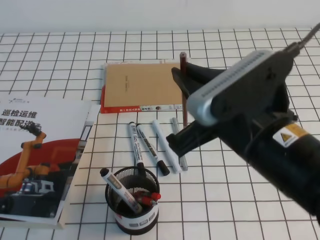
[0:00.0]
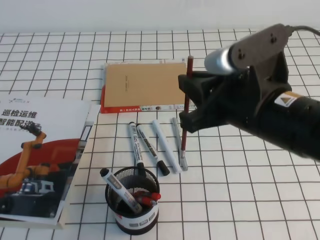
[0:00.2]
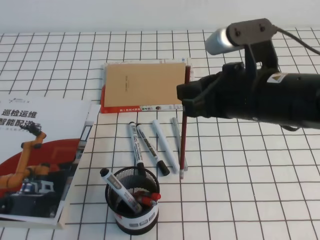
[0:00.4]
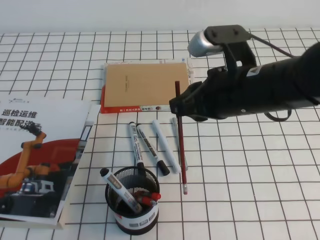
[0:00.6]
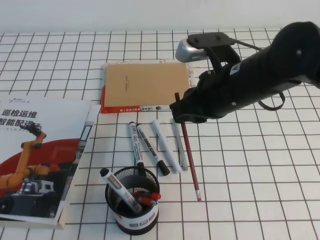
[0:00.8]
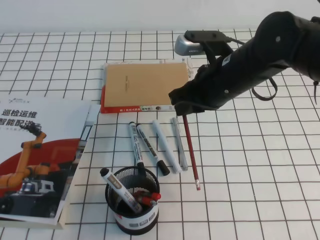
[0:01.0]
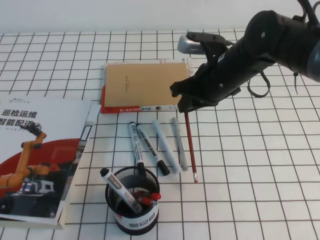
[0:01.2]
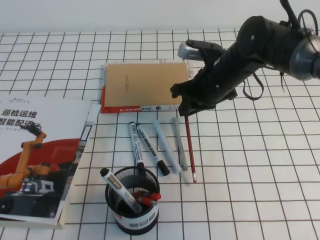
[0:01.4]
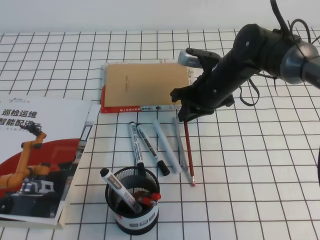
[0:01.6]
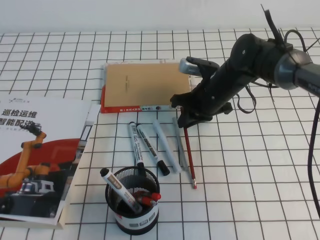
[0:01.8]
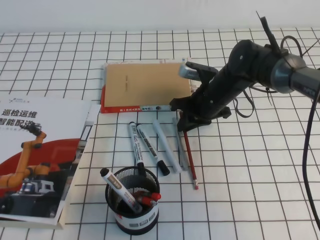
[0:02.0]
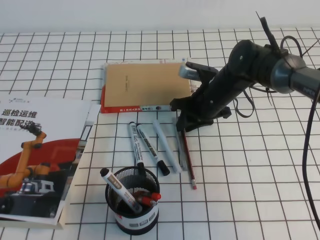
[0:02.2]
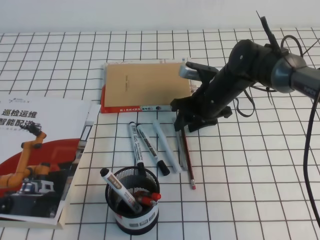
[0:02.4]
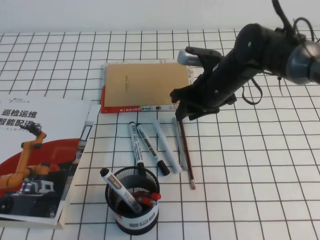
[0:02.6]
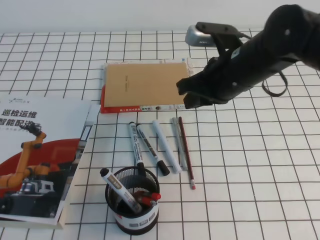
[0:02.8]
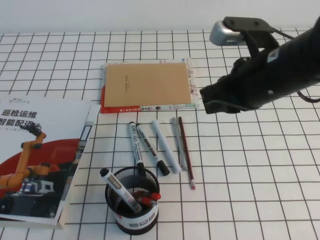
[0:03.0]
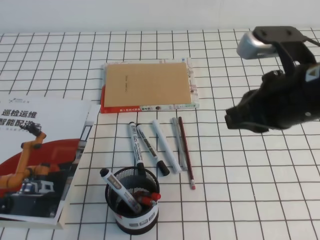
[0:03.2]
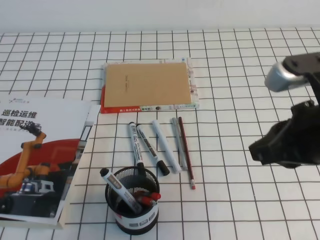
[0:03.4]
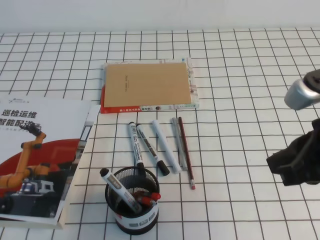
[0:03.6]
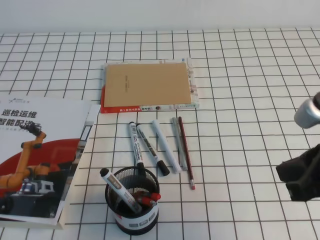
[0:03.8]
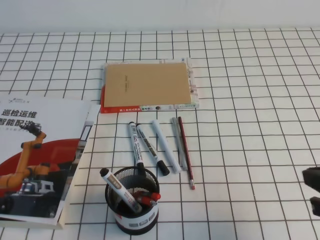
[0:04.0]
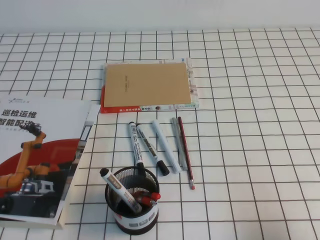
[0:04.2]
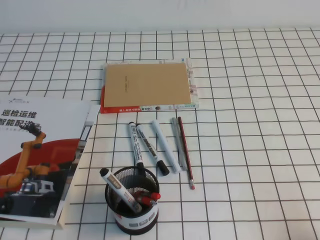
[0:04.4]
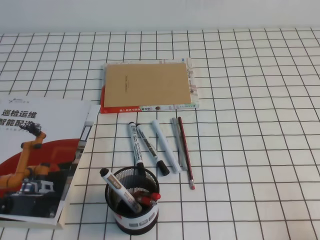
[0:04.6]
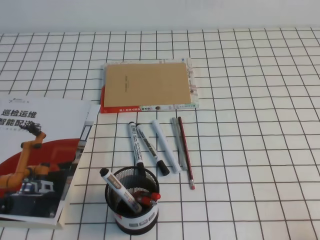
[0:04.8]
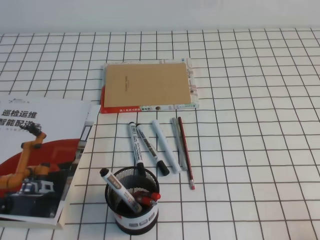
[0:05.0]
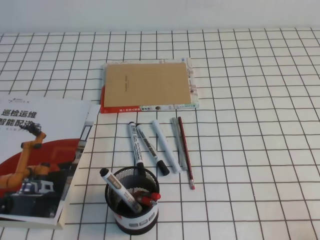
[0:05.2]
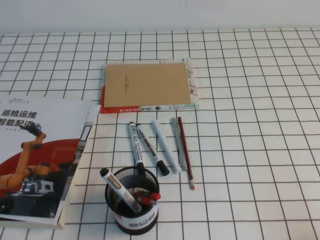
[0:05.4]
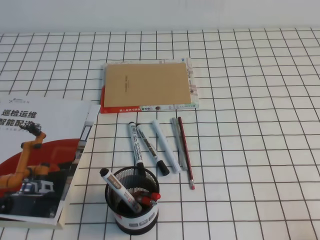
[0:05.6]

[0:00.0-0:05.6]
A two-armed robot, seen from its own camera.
Step, 0:00.0 to 0:05.6: Pick up the pen from the pen holder.
0:00.0 to 0:01.4: The right gripper moves forward and downward, about 25 cm.
0:01.4 to 0:02.8: The right gripper moves about 5 cm.
0:02.8 to 0:04.2: The right gripper is displaced backward and to the right by roughly 30 cm.
0:04.2 to 0:05.6: The right gripper shifts roughly 10 cm downward and backward.

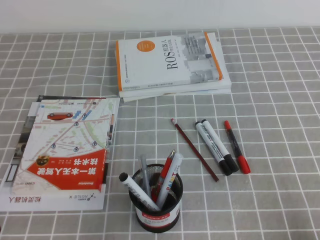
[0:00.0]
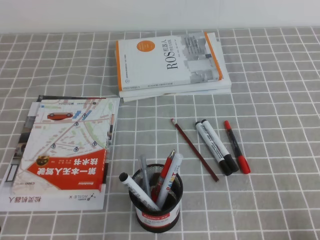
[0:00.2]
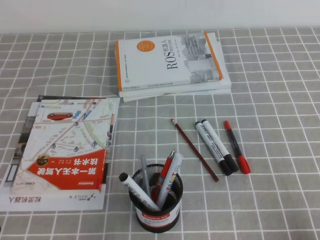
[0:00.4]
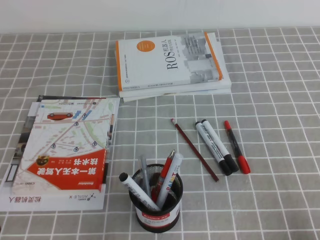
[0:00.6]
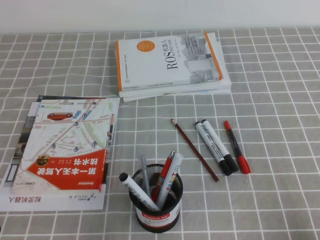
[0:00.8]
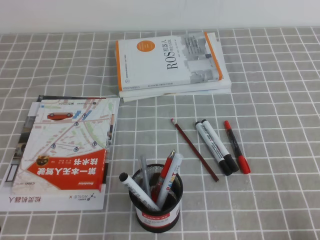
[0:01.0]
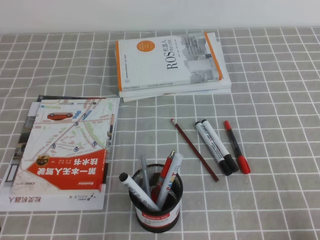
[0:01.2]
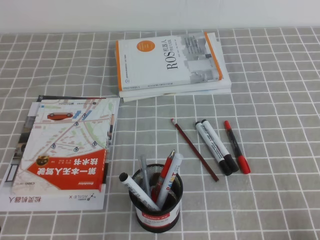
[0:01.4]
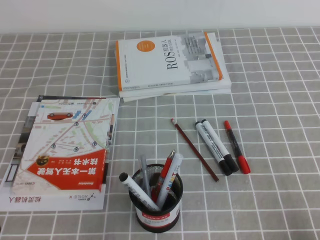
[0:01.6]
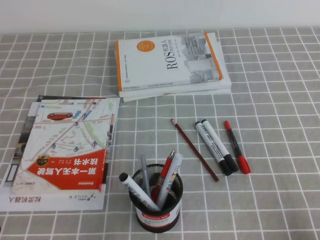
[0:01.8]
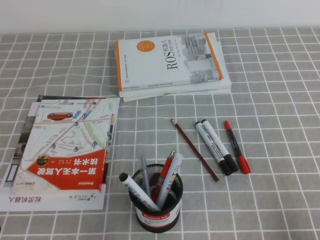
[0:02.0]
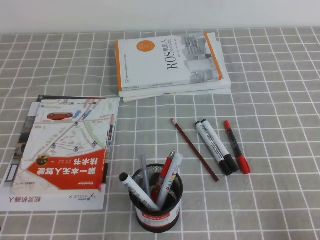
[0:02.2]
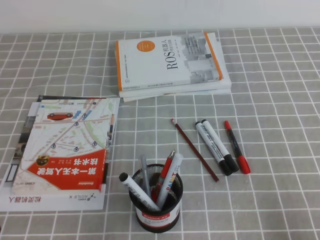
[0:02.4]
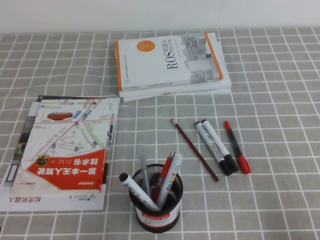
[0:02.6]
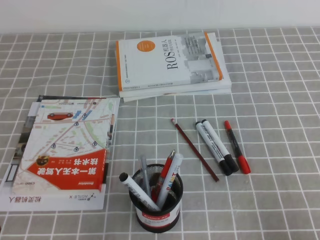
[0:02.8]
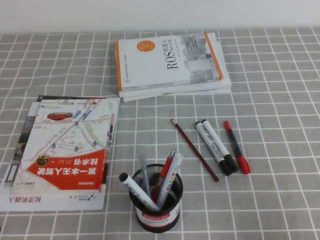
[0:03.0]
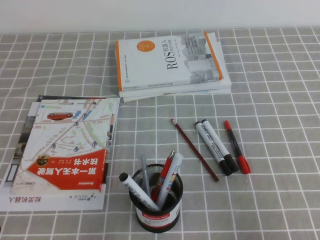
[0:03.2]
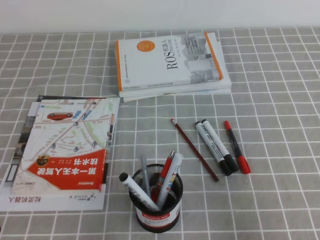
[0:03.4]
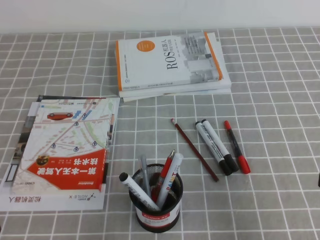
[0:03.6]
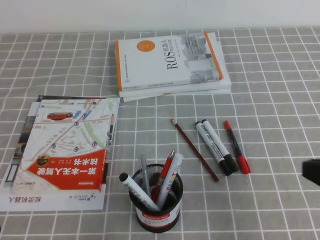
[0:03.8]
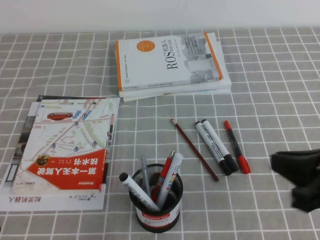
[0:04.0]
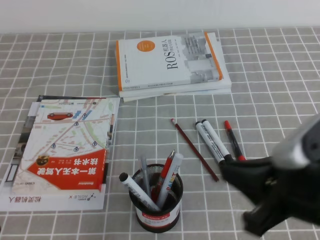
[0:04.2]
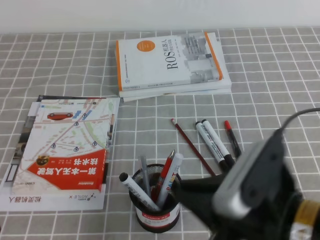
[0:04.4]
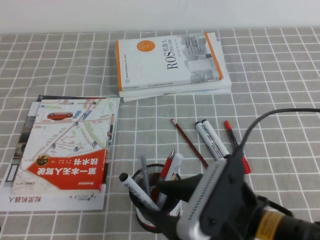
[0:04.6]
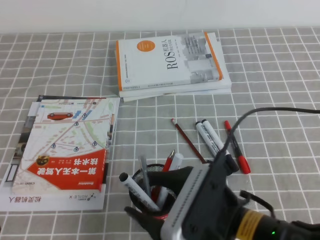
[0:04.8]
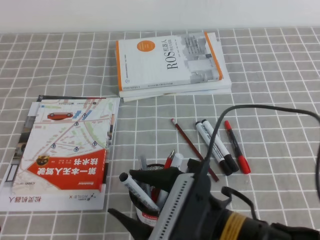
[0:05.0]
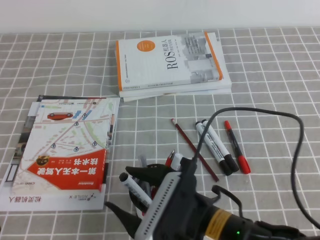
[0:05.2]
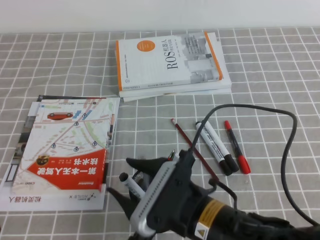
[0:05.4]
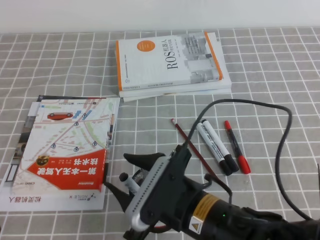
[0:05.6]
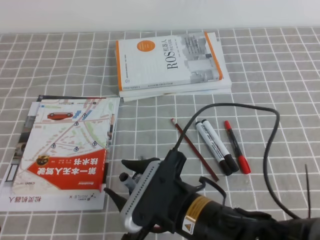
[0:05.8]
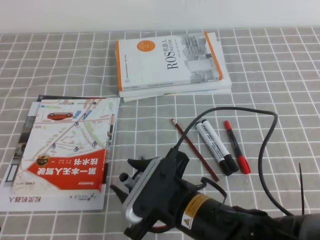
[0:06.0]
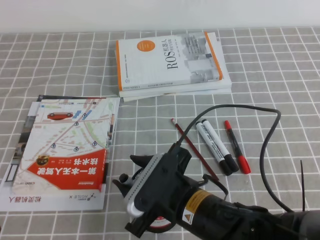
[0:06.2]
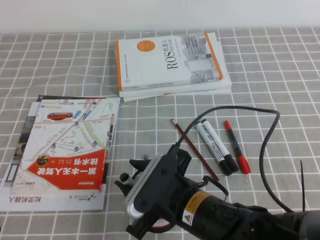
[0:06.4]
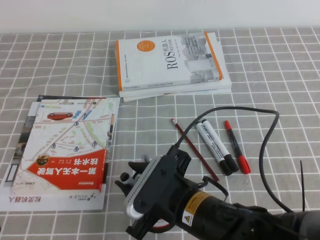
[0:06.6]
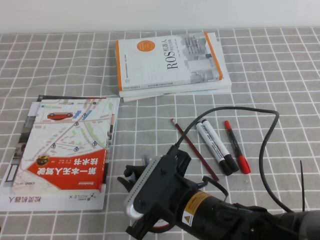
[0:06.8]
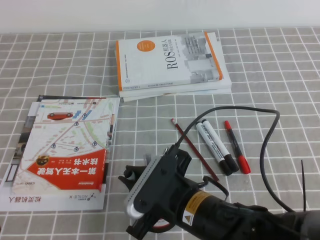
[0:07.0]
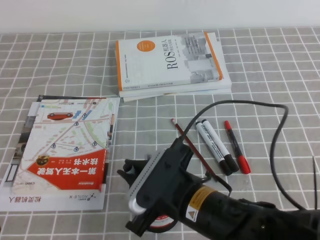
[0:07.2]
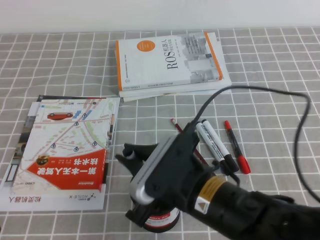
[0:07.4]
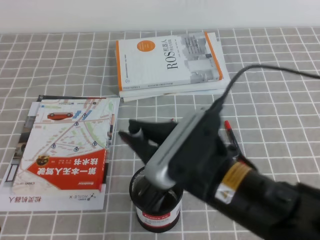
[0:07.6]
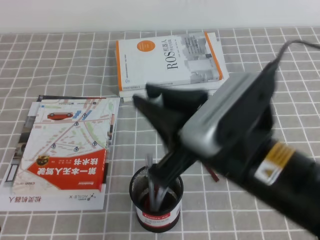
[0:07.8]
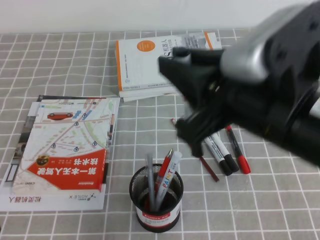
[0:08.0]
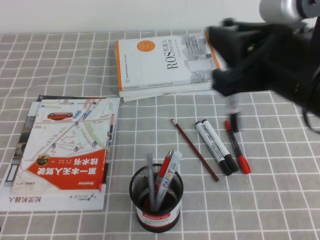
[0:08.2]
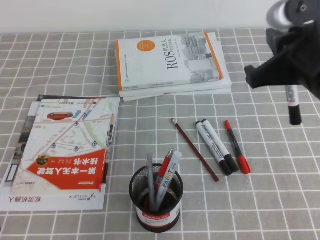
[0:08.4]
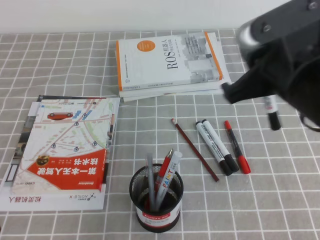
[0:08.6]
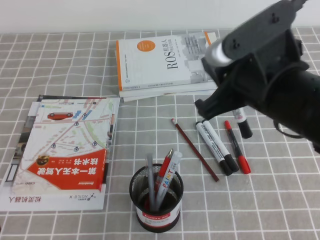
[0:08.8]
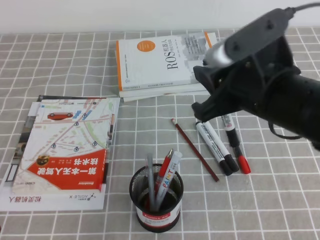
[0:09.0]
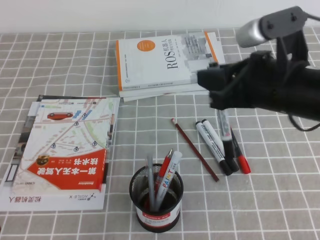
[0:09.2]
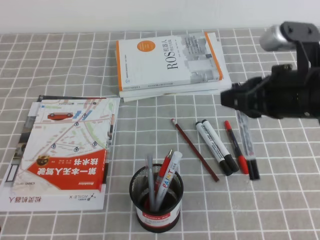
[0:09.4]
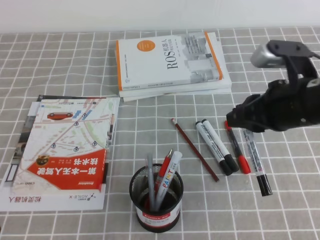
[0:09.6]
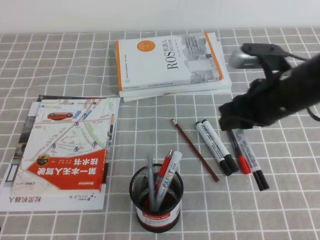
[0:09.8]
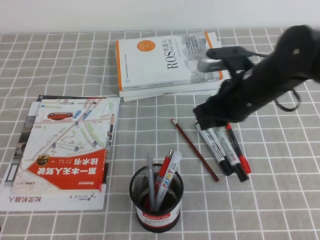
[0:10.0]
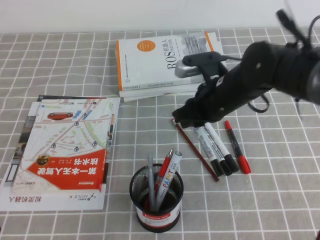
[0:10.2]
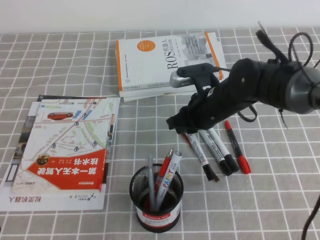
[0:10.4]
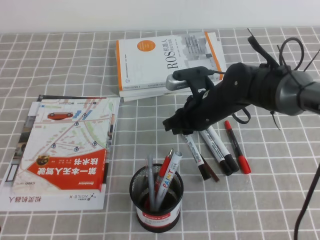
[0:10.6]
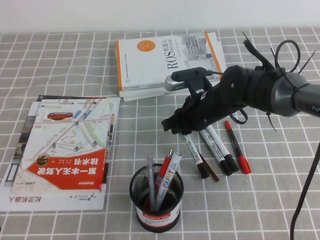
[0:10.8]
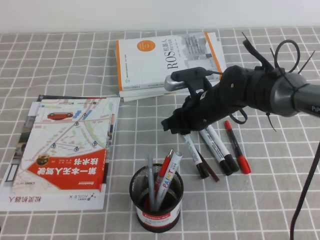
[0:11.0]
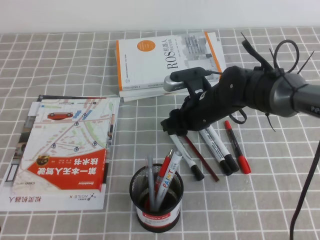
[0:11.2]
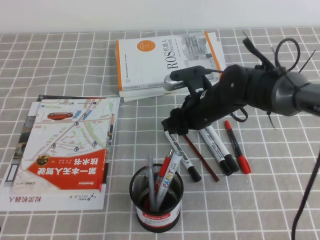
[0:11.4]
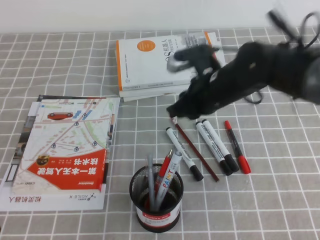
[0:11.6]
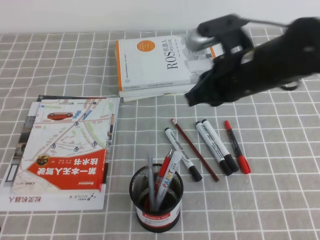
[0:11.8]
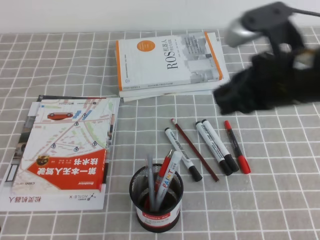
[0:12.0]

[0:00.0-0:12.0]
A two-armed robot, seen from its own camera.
0:00.0 to 0:01.6: The two grippers keep their place.
0:03.0 to 0:04.4: The right gripper shifts some 15 cm to the left and forward.
0:04.4 to 0:06.0: The right gripper is displaced to the left and downward by roughly 15 cm, and opens.
0:06.0 to 0:07.6: The right gripper shifts approximately 10 cm upward, and closes up.
0:07.6 to 0:09.0: The right gripper heads to the right, forward and upward, covering roughly 15 cm.
0:09.0 to 0:10.4: The right gripper shifts approximately 20 cm downward and forward.
0:10.4 to 0:12.0: The right gripper moves upward, backward and to the right, some 20 cm, and opens and closes again.

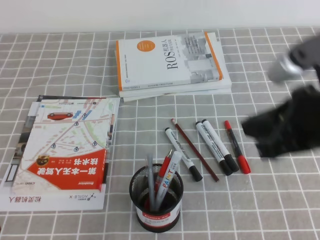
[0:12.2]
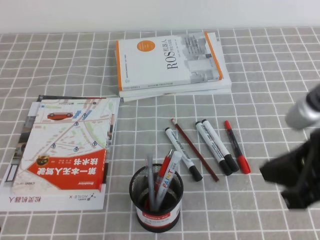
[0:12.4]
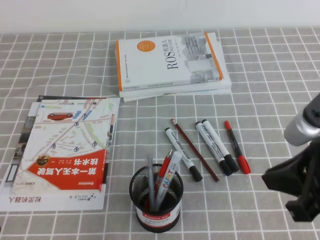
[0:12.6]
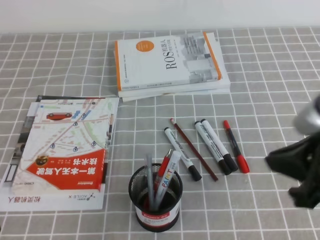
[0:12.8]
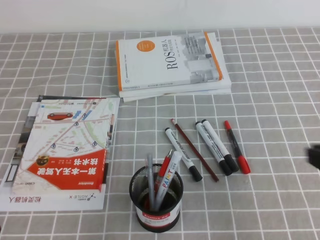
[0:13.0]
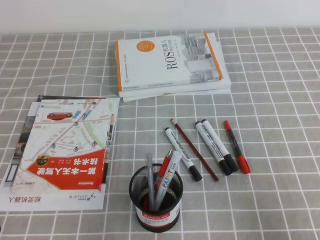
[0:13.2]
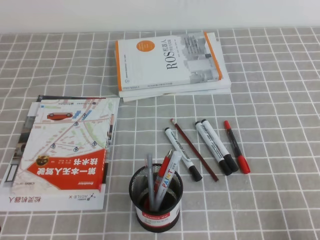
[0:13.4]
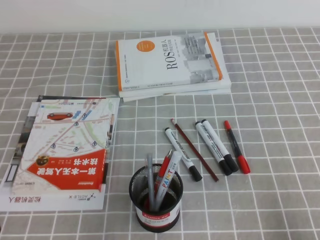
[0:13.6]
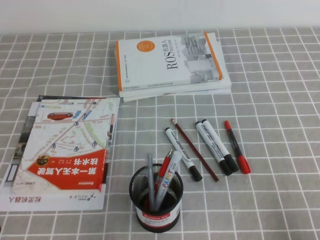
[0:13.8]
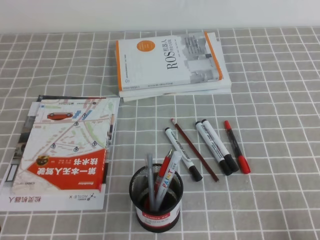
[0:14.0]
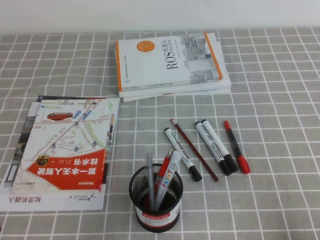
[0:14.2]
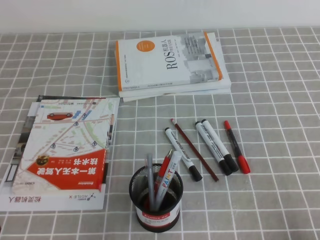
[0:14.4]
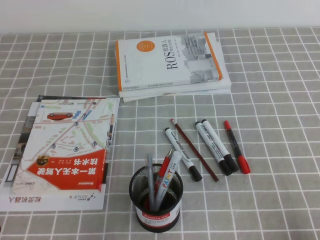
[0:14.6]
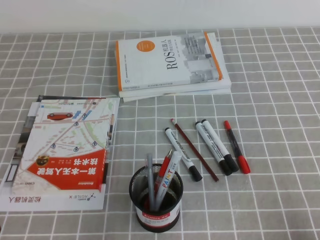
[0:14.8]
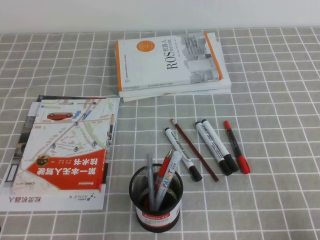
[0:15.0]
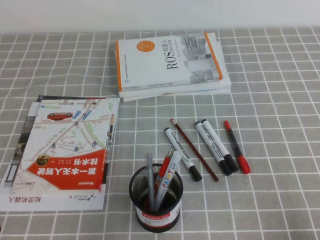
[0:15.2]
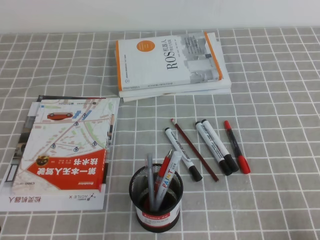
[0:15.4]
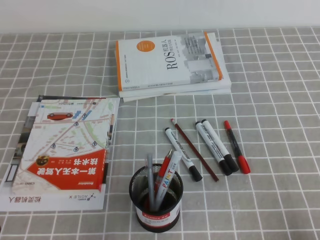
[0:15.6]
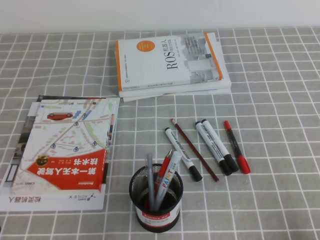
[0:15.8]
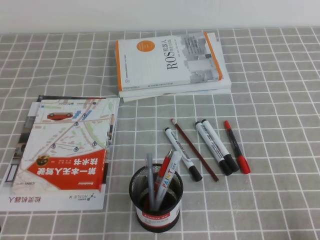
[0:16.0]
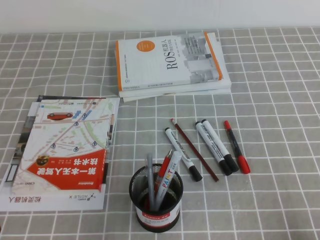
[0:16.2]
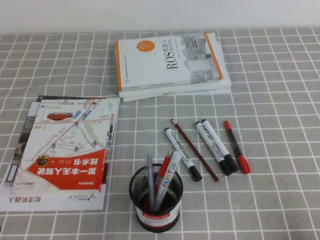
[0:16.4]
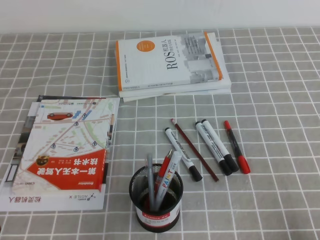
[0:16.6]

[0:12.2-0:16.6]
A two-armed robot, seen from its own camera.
Step, 0:12.2 to 0:16.6: Pick up the pen from the pen holder.
0:12.2 to 0:13.6: The right gripper shifts roughly 25 cm downward, backward and to the right.
0:15.2 to 0:16.6: Both grippers stay put.
